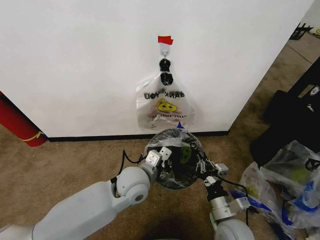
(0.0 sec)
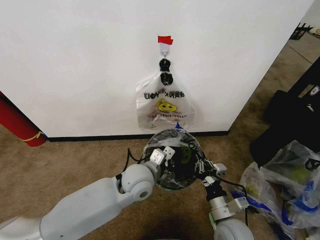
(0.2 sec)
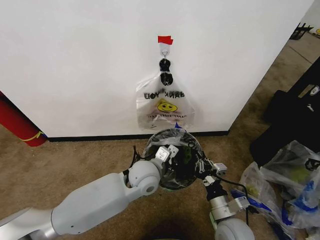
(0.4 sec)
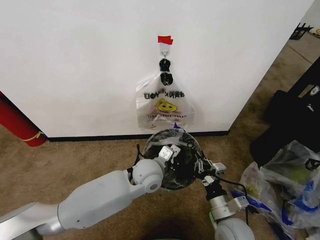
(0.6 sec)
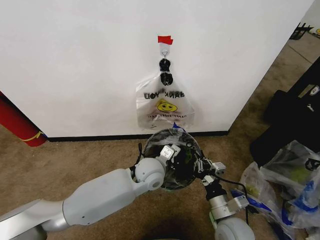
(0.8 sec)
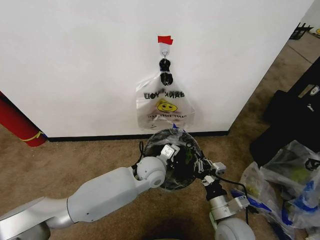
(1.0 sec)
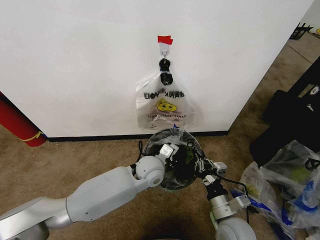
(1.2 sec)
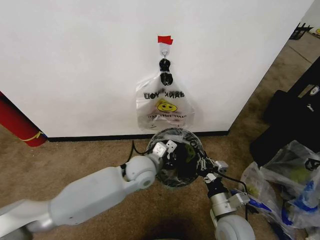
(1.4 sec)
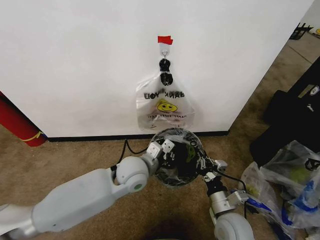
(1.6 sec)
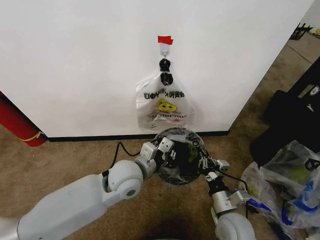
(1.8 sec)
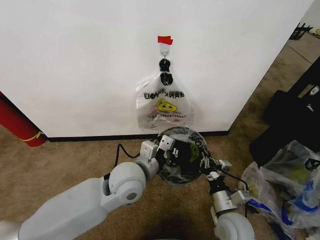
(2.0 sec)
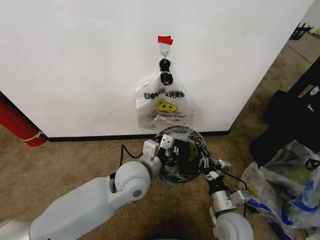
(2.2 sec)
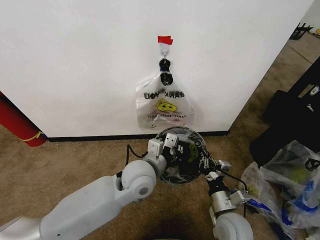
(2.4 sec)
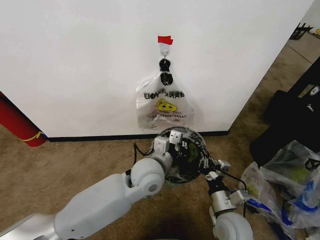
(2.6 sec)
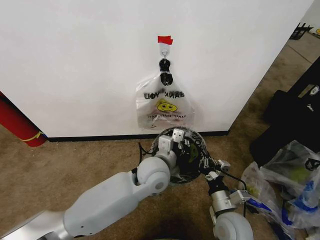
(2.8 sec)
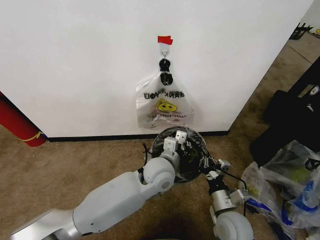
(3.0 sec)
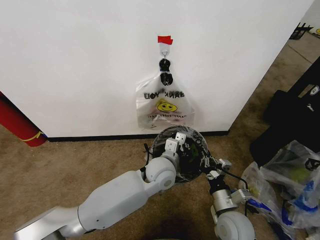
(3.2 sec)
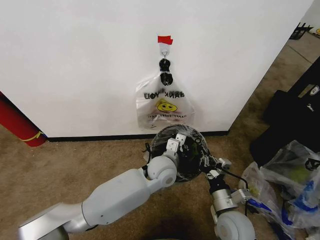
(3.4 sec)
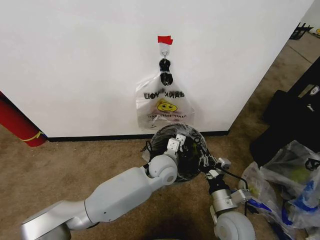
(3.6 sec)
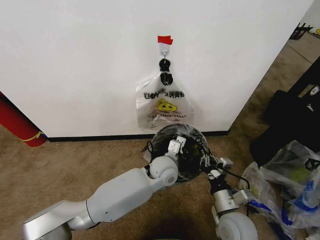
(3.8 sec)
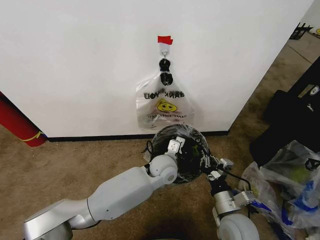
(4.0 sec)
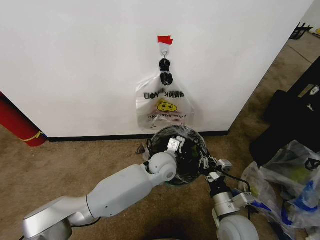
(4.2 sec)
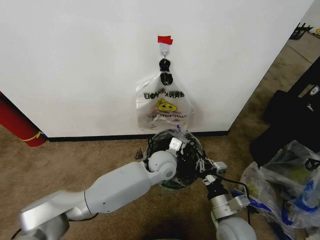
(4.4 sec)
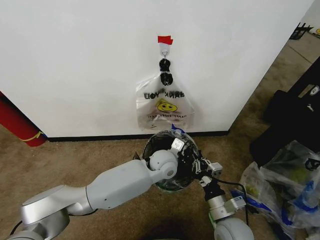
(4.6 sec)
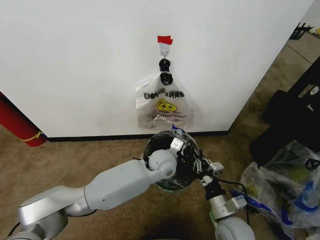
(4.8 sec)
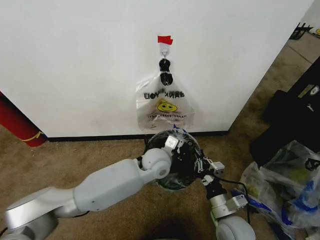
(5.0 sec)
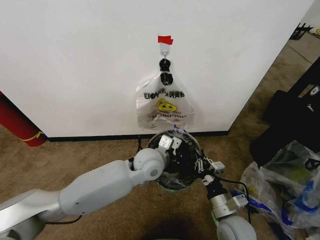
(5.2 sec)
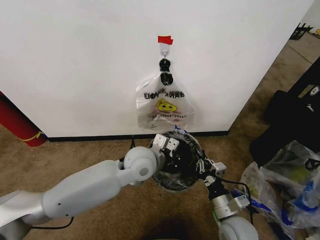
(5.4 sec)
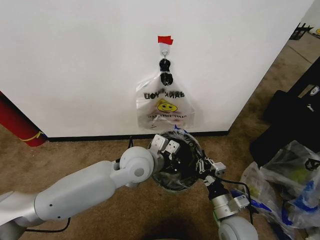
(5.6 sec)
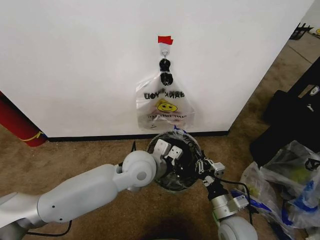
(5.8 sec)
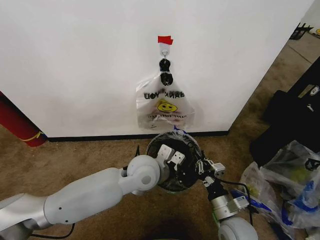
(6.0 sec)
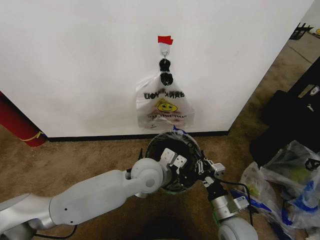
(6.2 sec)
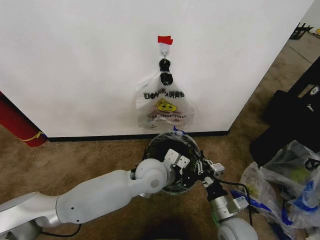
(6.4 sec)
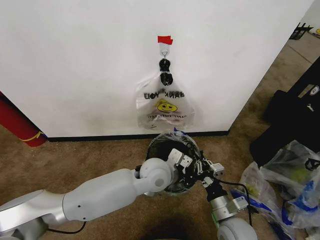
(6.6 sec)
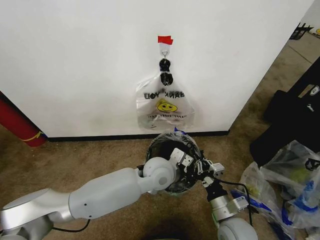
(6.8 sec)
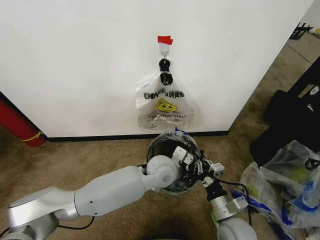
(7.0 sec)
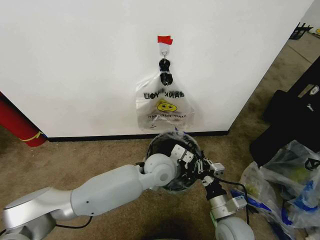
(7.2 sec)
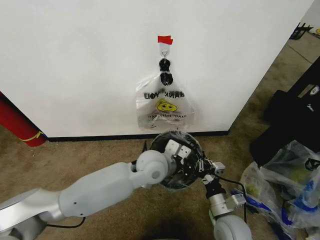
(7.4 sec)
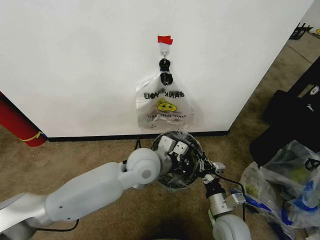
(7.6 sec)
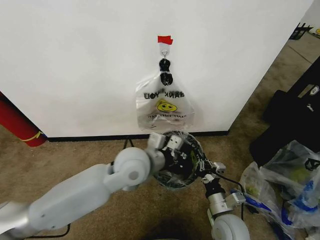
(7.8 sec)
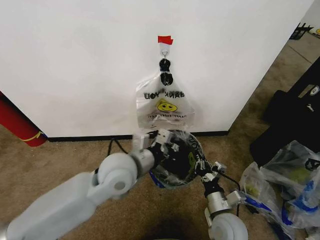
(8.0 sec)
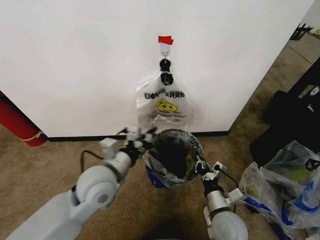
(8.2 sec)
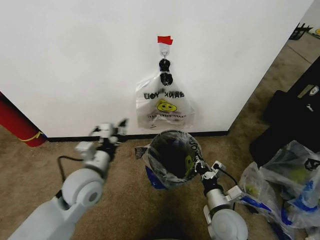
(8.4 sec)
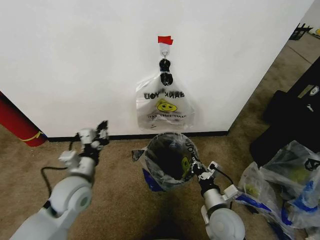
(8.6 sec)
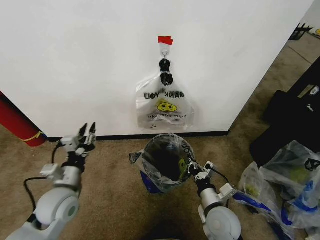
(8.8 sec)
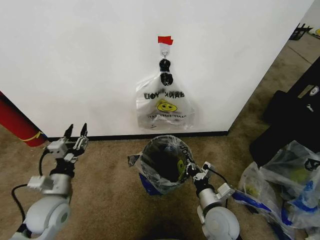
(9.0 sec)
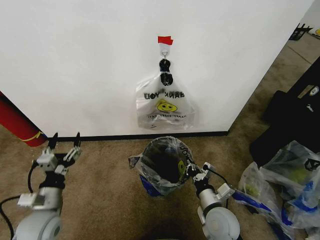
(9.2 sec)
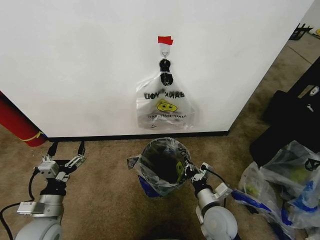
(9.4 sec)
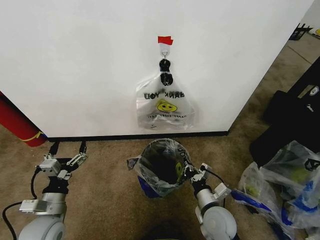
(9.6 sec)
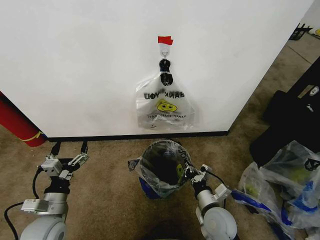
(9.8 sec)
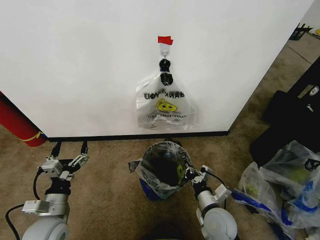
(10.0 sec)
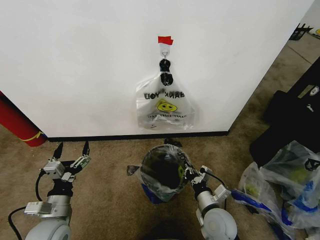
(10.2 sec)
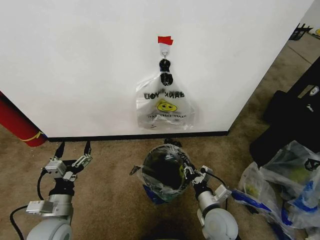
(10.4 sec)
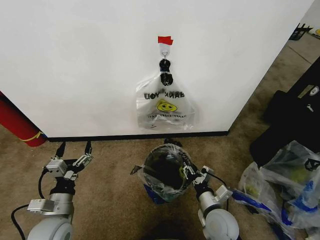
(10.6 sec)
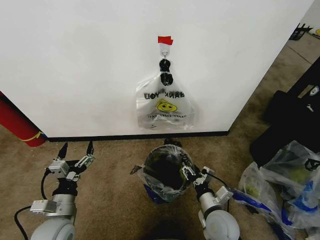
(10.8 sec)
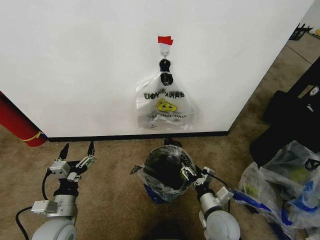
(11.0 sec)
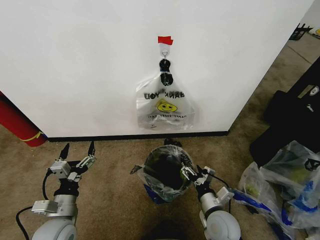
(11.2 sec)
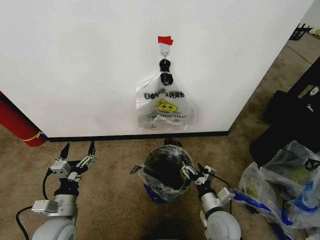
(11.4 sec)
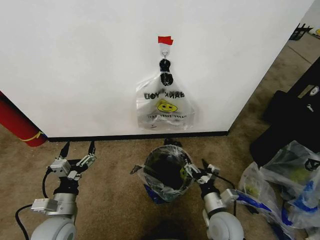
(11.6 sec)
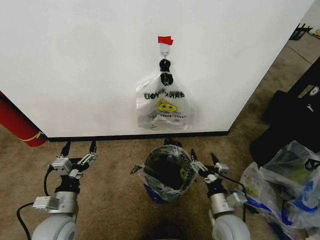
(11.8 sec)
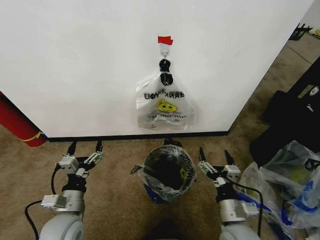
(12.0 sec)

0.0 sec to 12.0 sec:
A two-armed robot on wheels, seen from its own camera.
Task of the whole recording: Pick up the garbage bag from the wall and place it over the trash bin.
1.6 sec to 3.0 sec: The left gripper goes about 10 cm to the right.
3.0 sec to 4.4 sec: The left gripper travels forward by some 5 cm.
4.4 sec to 6.0 sec: The left gripper travels upward, backward and to the left by roughly 10 cm.
7.6 sec to 9.0 sec: The left gripper is displaced to the left by some 25 cm, and opens its fingers.
9.0 sec to 10.4 sec: The left gripper moves approximately 5 cm, and opens its fingers.
10.4 sec to 12.0 sec: The right gripper shifts by approximately 5 cm, and opens its fingers.

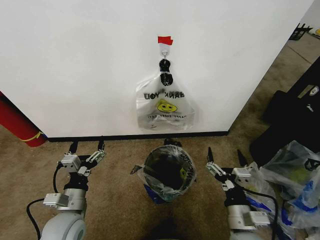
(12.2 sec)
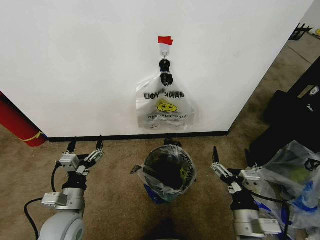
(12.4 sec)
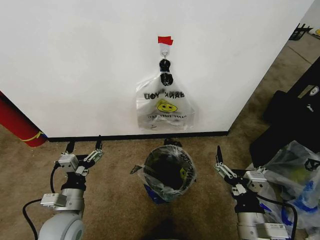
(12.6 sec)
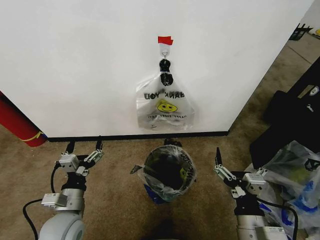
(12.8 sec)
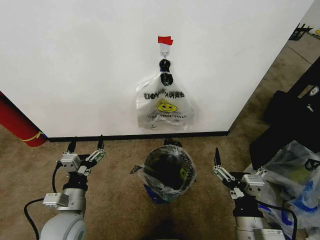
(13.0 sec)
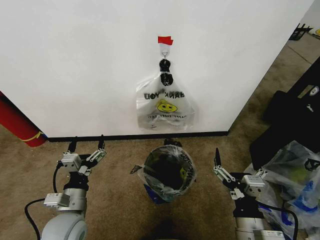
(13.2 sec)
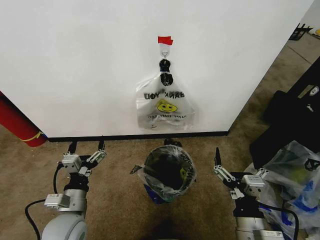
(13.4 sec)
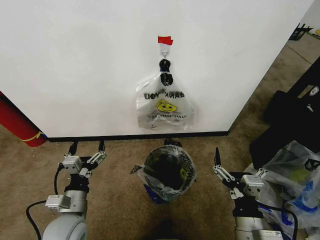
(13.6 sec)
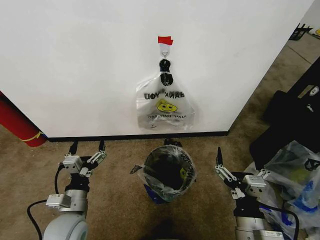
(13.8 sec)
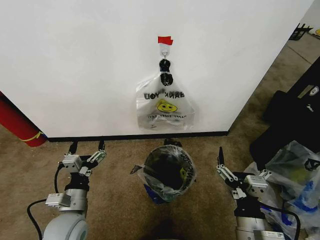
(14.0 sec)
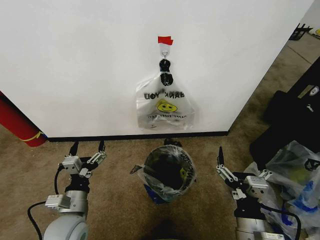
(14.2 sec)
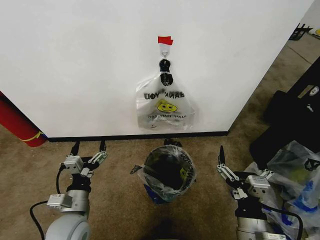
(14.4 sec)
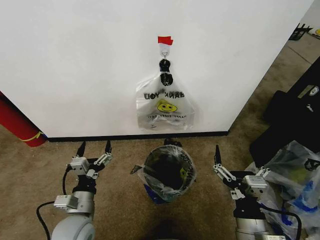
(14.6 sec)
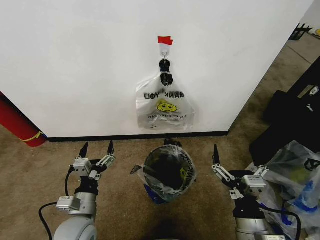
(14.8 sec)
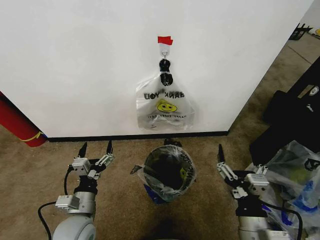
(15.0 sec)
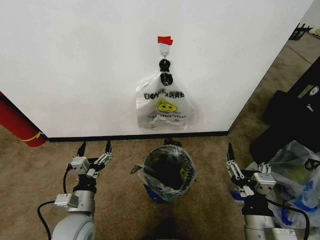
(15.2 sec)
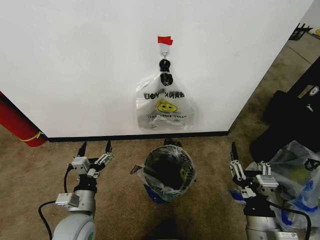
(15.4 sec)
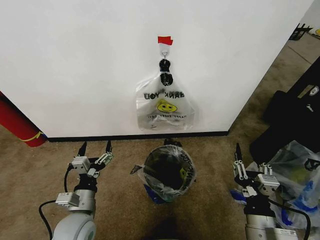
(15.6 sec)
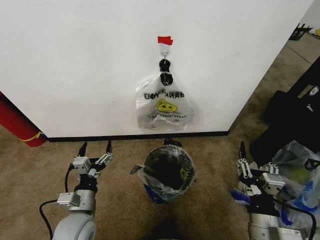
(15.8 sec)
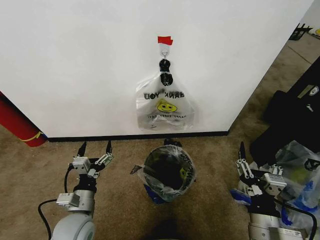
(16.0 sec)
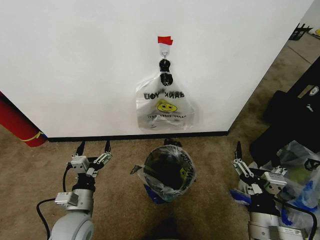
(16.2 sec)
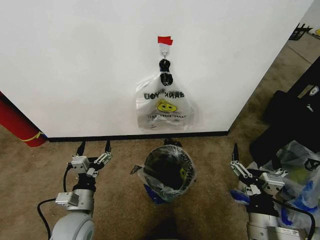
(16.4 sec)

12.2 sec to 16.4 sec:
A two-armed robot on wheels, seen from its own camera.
Task of the whole recording: Pick up the garbage bag from the wall and place it over the trash bin.
12.2 sec to 15.0 sec: The grippers make only small movements.
15.0 sec to 16.4 sec: The right gripper closes, then reopens.
